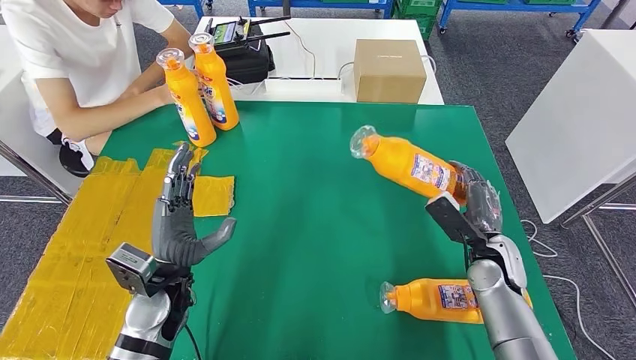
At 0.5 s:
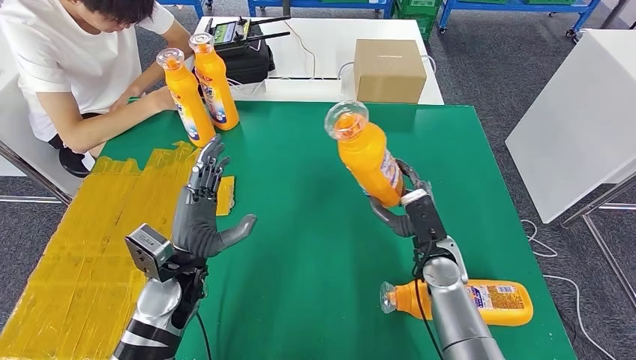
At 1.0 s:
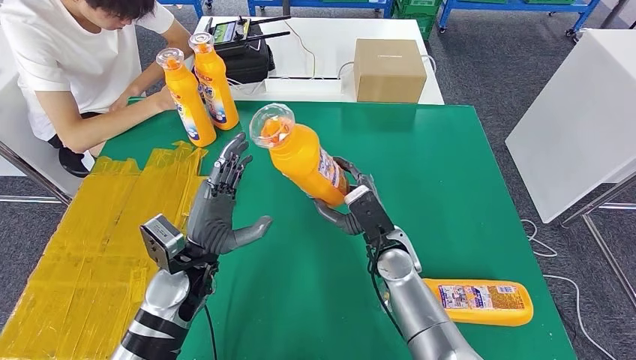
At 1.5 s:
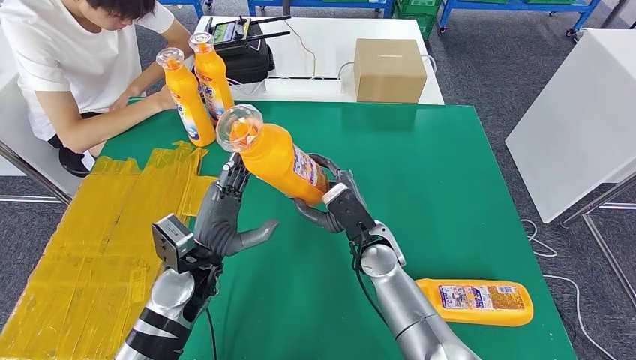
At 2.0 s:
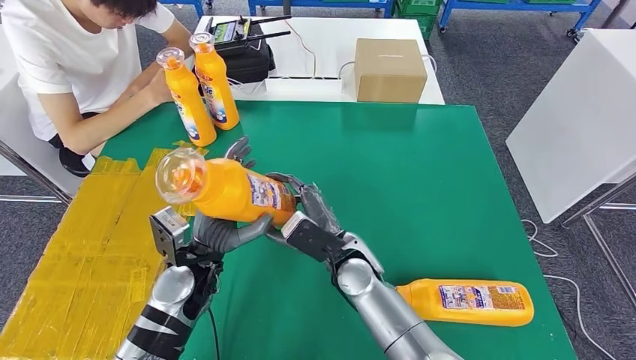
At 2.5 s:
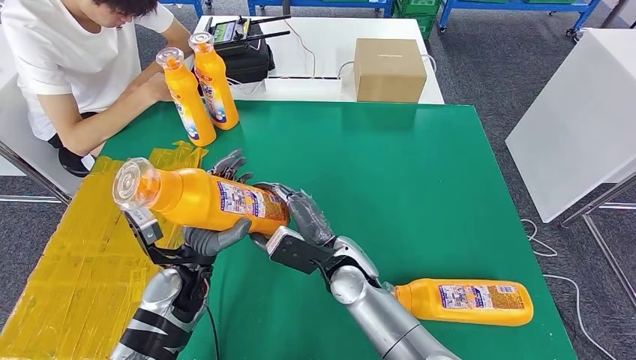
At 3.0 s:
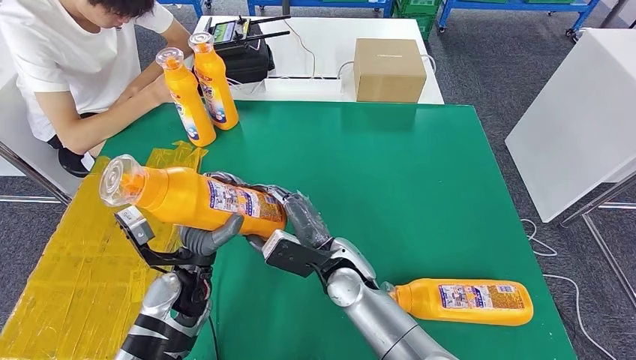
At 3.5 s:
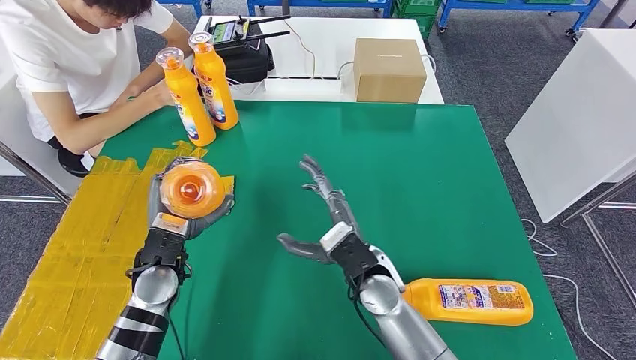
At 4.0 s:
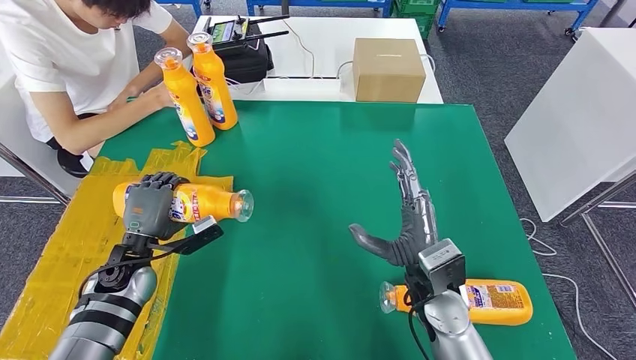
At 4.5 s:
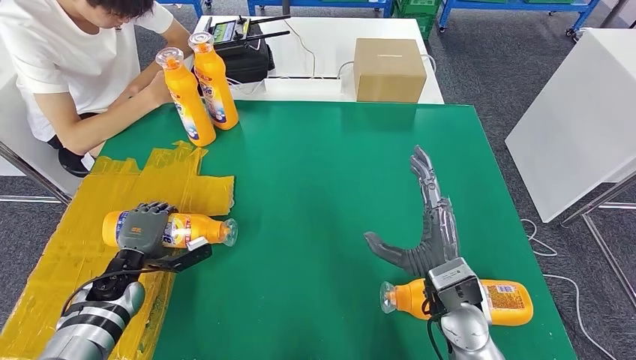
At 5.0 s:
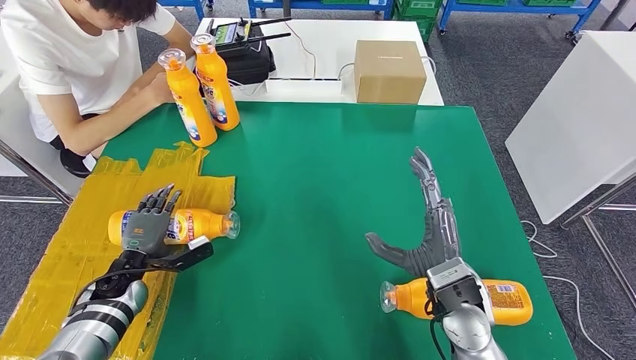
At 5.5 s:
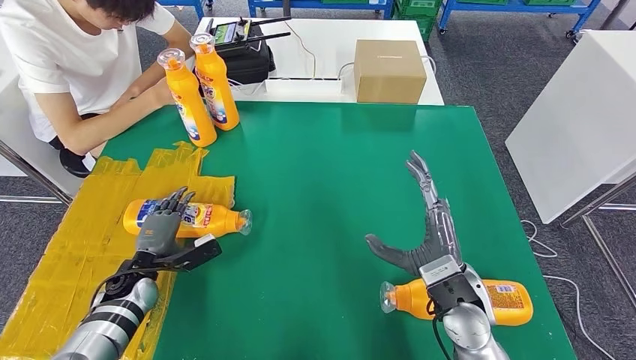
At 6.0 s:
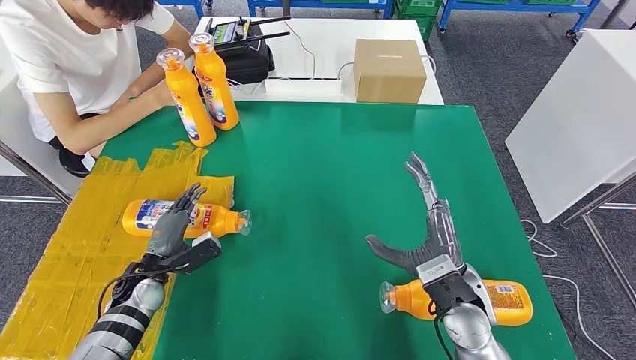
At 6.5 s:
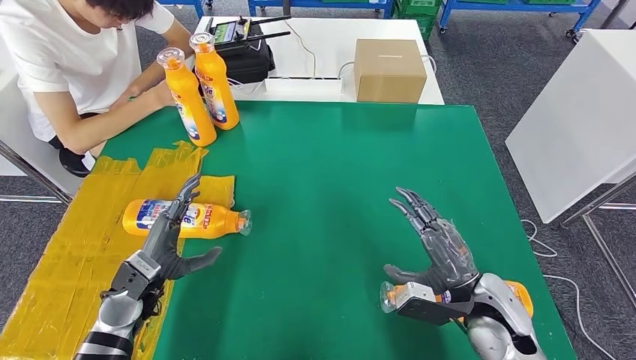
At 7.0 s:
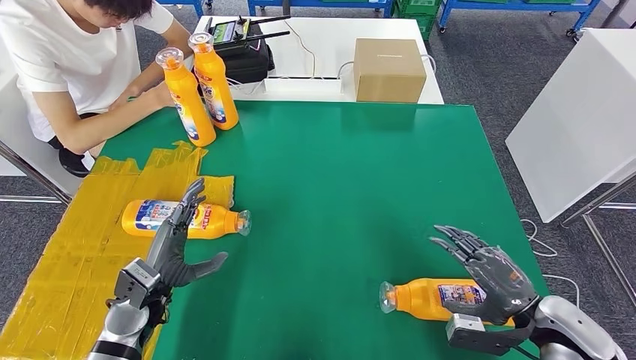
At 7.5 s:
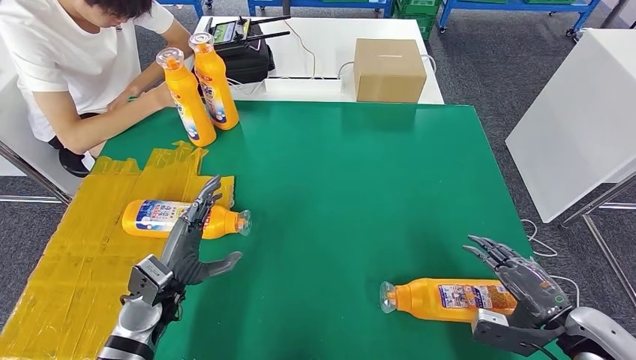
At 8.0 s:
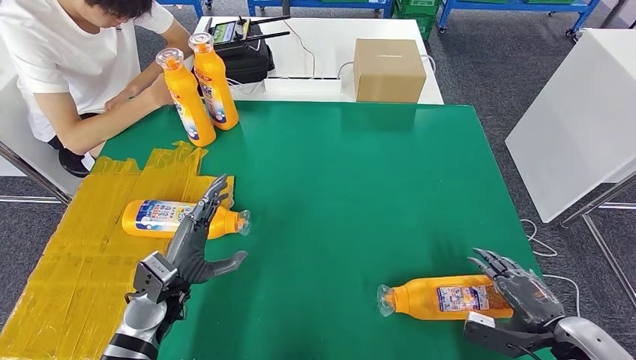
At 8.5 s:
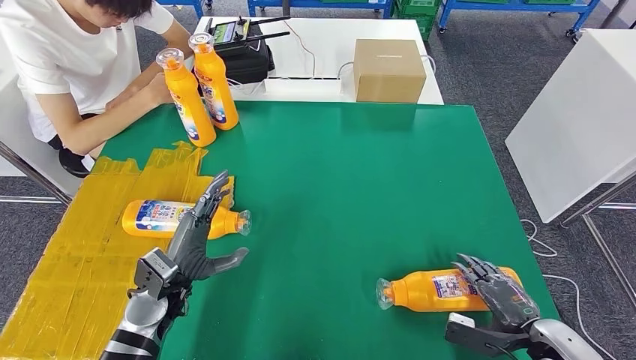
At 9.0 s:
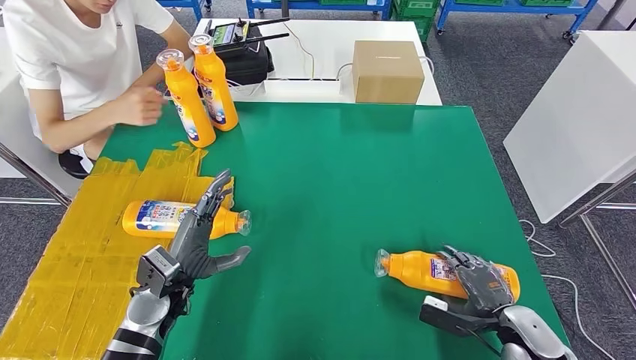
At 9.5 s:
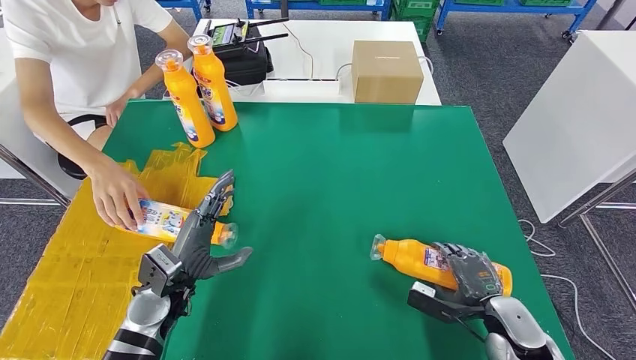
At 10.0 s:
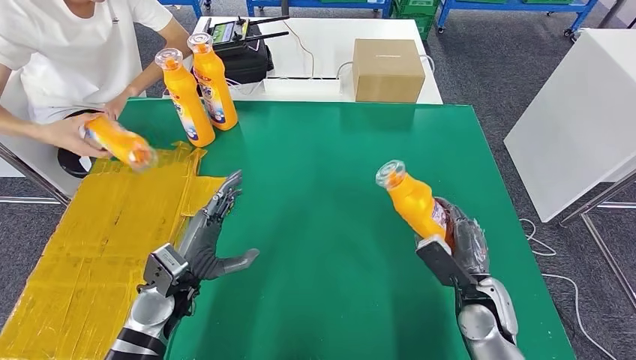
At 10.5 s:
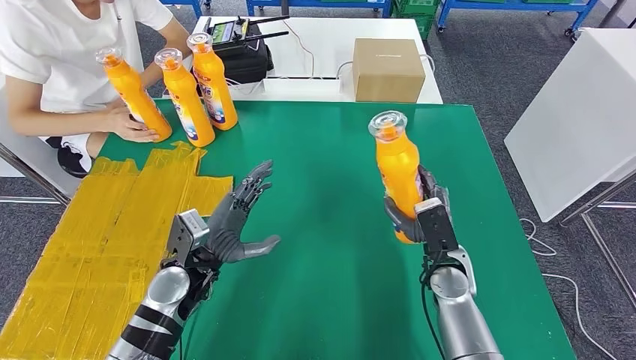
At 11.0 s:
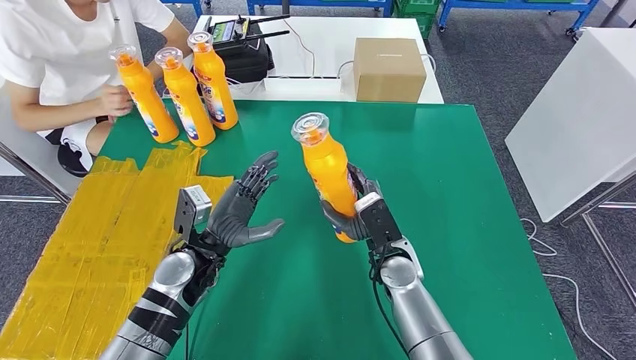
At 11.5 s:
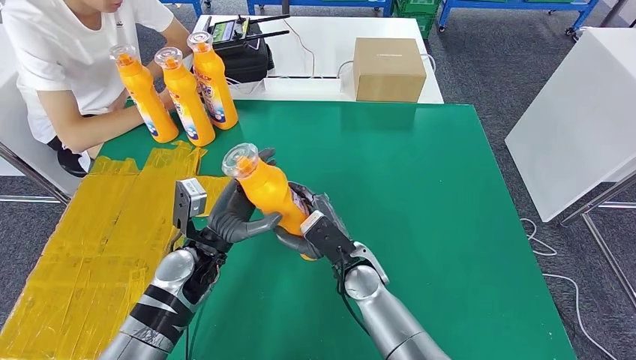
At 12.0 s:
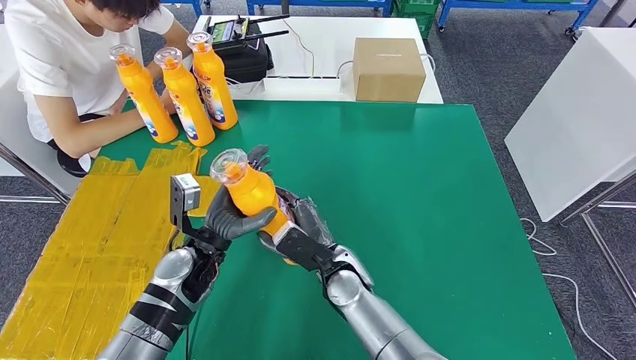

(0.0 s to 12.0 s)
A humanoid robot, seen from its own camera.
Step, 0.0 s - 4.5 s: Pick up the fast-moving consumer goods bottle from the table.
Step, 5.0 s - 9.0 s: Flip the fast-moving consumer goods bottle to the front side.
Step, 9.5 s - 11.5 s: Pick up the fast-moving consumer goods bottle from the table.
4.0 s - 6.0 s: The left hand shifts about 5 cm downward.
6.0 s - 8.0 s: The right hand moves to the right, roughly 20 cm, while the left hand is displaced to the right and upward by approximately 10 cm.
8.0 s - 10.0 s: The right hand moves to the left and forward, roughly 15 cm.

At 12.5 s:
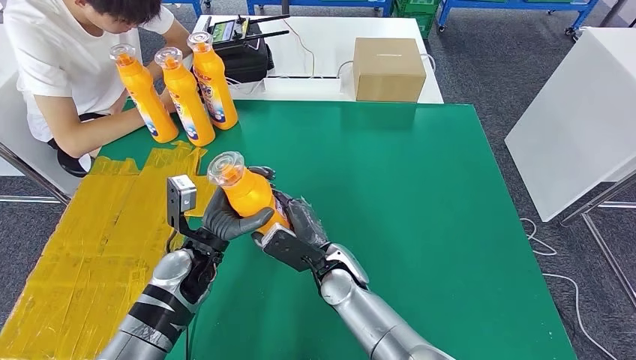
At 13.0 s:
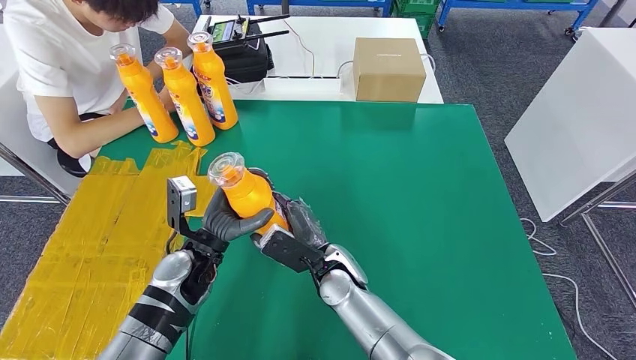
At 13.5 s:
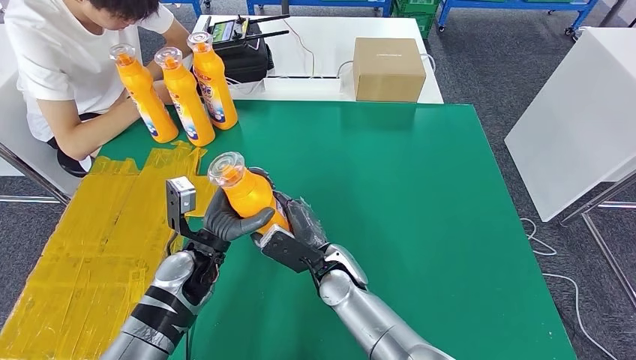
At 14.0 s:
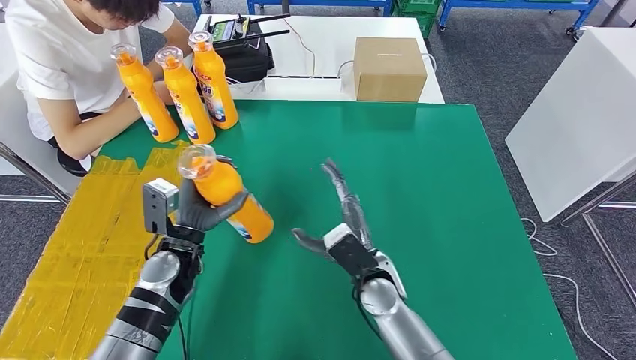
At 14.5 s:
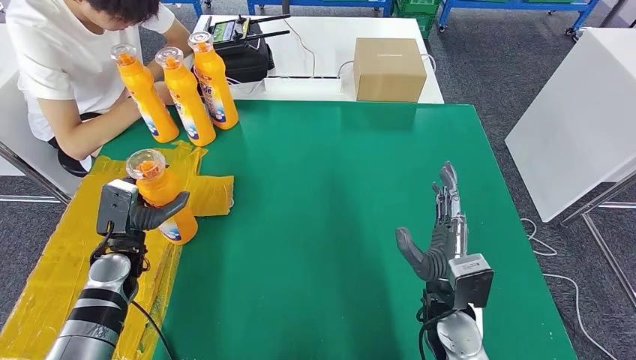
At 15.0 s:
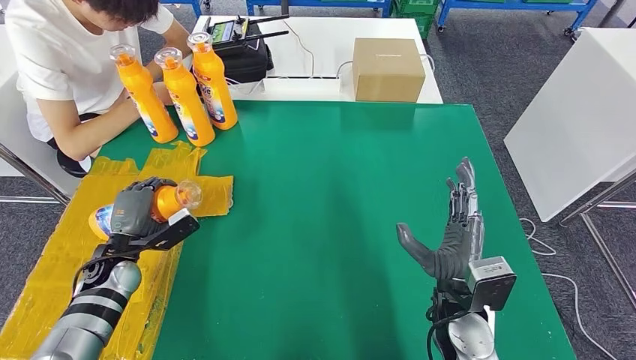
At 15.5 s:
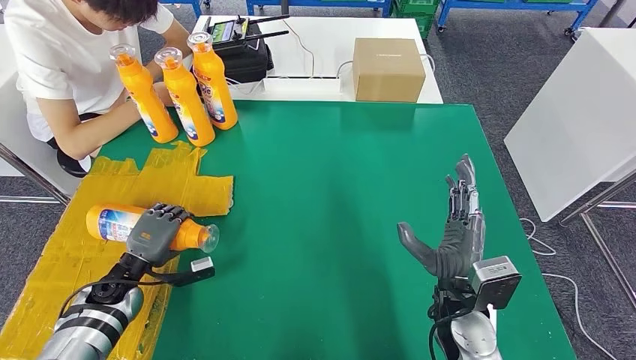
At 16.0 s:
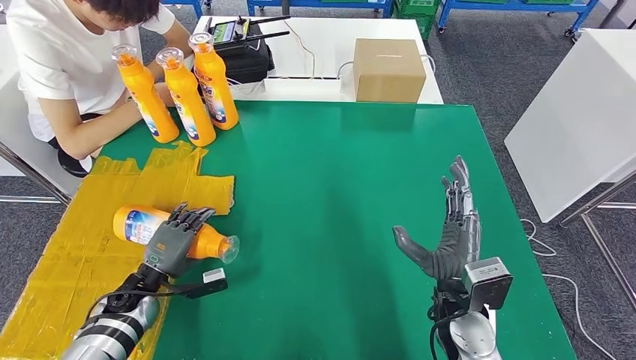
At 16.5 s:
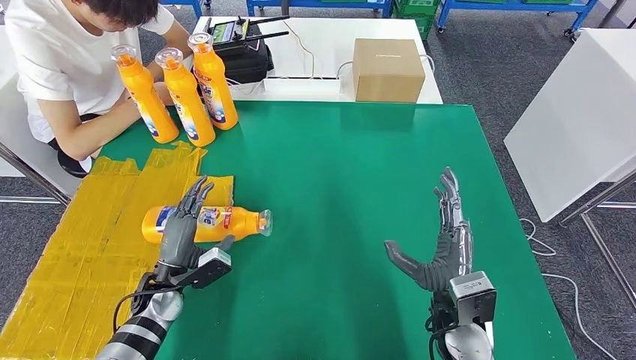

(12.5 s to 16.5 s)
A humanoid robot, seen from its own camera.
Step, 12.5 s - 16.5 s: Flip the fast-moving consumer goods bottle to the front side.
12.5 s - 14.5 s: The left hand travels to the left by roughly 15 cm. Meanwhile the right hand goes roughly 15 cm to the right.
14.5 s - 16.5 s: The left hand moves downward and to the right, roughly 10 cm.
